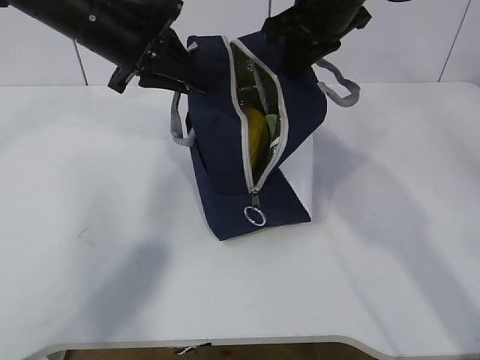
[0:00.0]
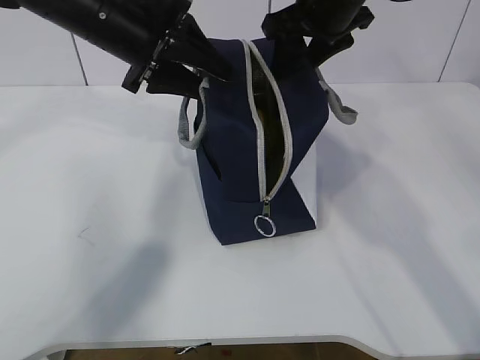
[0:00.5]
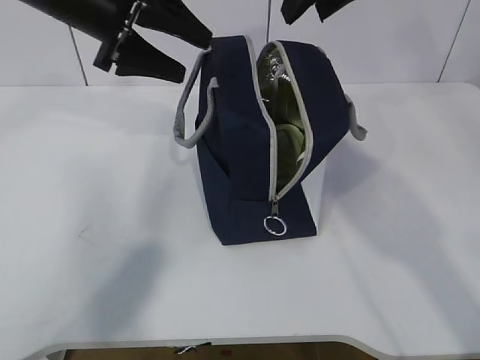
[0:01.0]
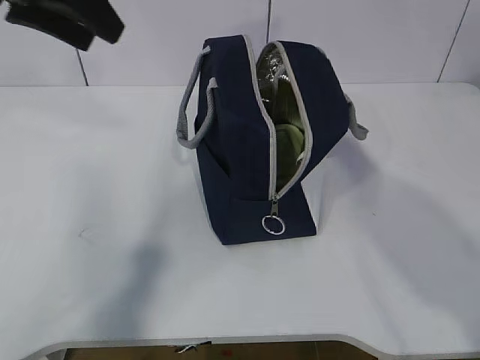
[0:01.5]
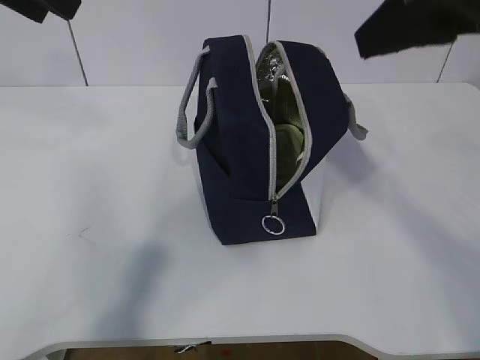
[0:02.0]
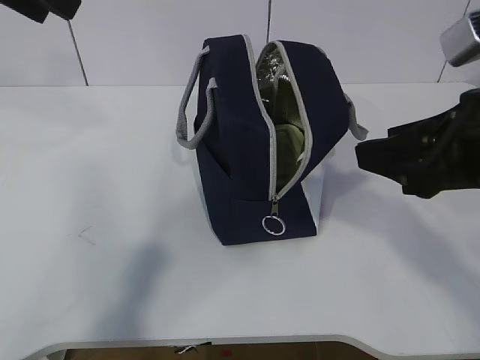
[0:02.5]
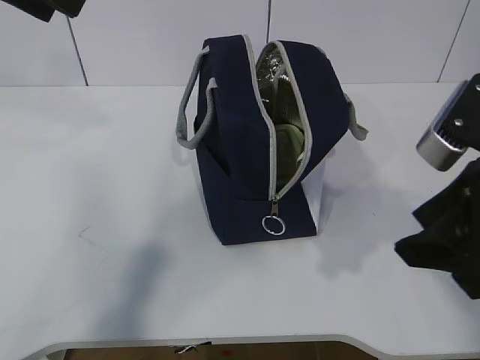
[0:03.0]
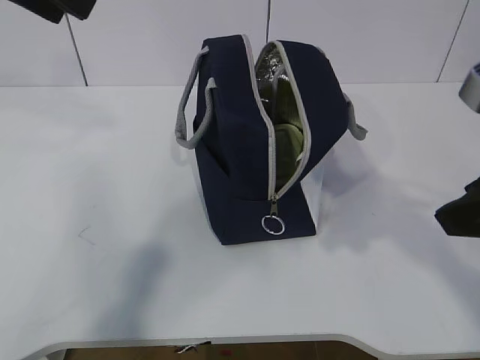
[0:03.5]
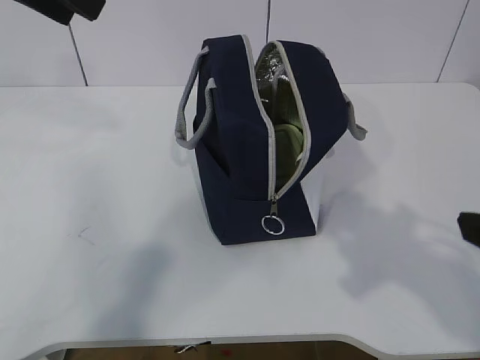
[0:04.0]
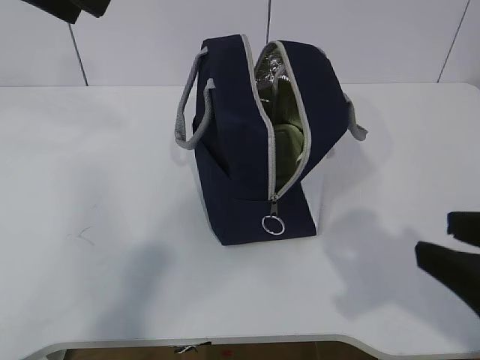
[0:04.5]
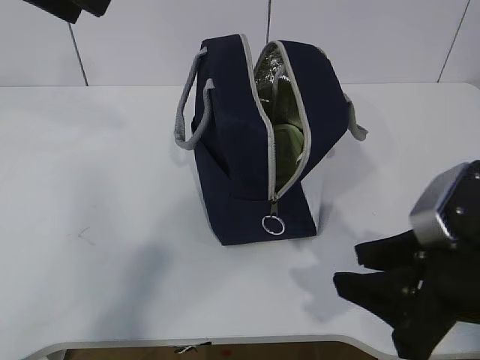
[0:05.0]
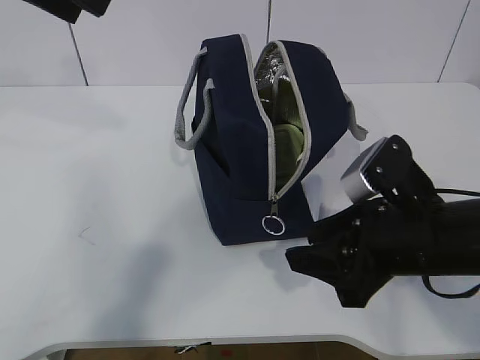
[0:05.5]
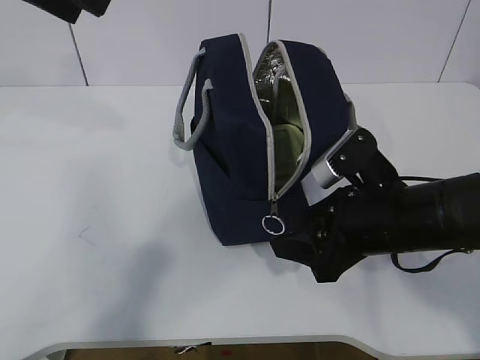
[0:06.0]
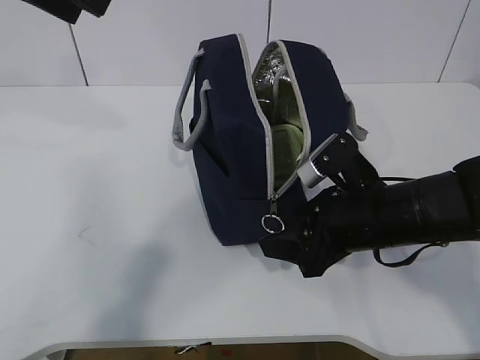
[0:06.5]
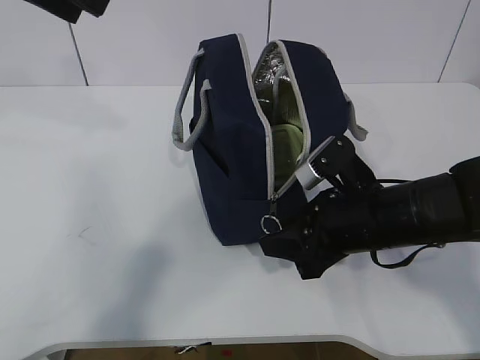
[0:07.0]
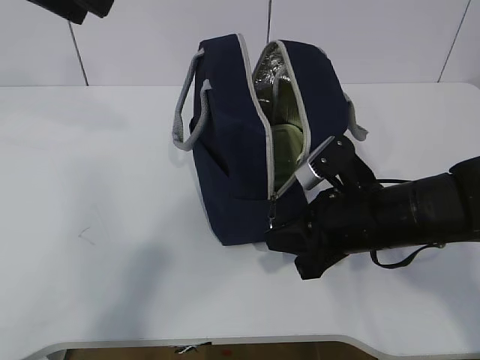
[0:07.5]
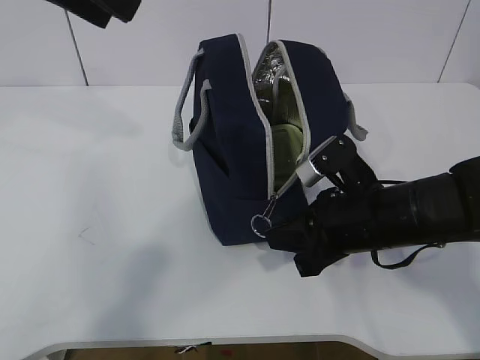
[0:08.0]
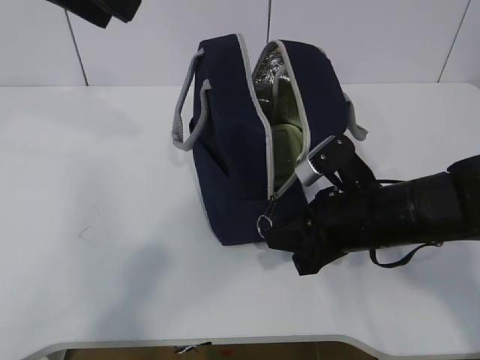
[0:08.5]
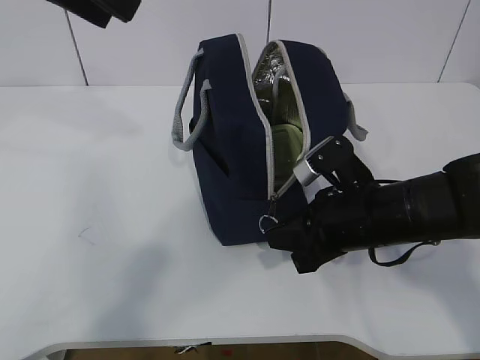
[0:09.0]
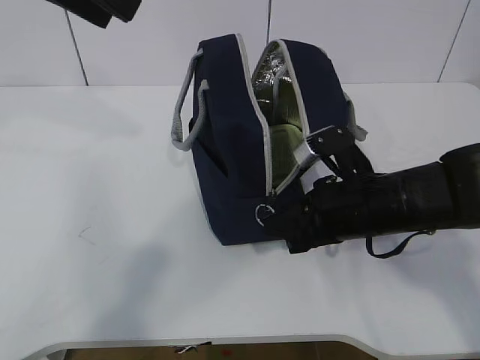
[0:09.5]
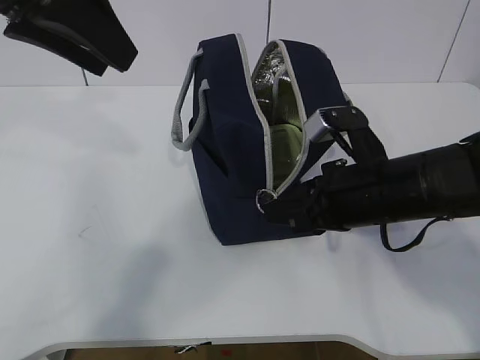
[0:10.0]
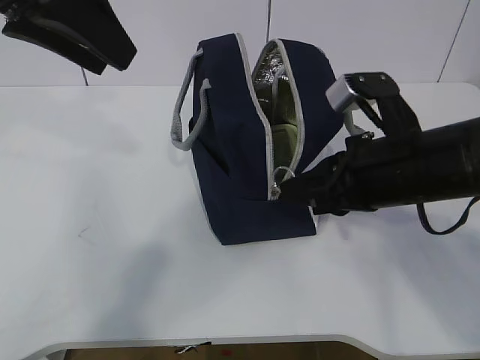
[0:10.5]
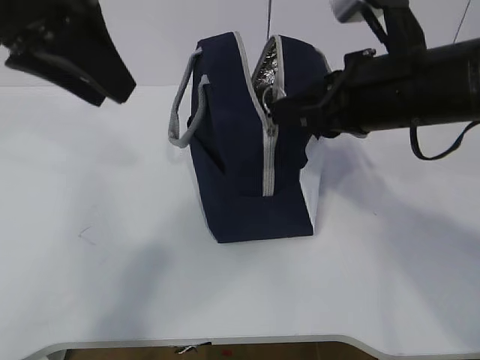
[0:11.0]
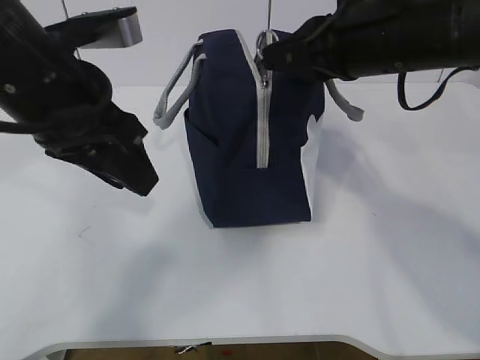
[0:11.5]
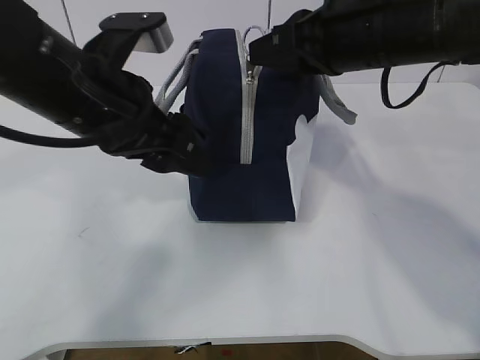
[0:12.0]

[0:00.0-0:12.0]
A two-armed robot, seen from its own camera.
Step, 0:00.0 to 0:04.5: Grab the lunch bag with your left hand.
0:00.0 to 0:02.0: The left gripper shifts some 15 cm upward, backward and to the left, and opens, while the right gripper moves backward, some 20 cm, and opens up.
0:02.0 to 0:04.0: The right gripper goes approximately 15 cm backward, downward and to the right.
0:04.0 to 0:06.0: The right gripper travels forward, downward and to the left by some 20 cm.
0:06.0 to 0:08.0: The right gripper closes up.
0:08.0 to 0:10.0: The grippers stay close to where they were, moving slightly.
0:10.0 to 0:12.0: The right gripper heads upward, covering some 15 cm; the left gripper is displaced downward by some 10 cm, and opens up.

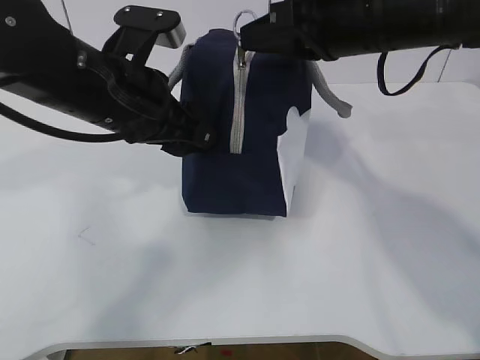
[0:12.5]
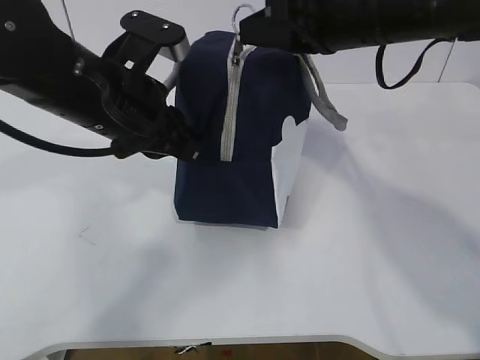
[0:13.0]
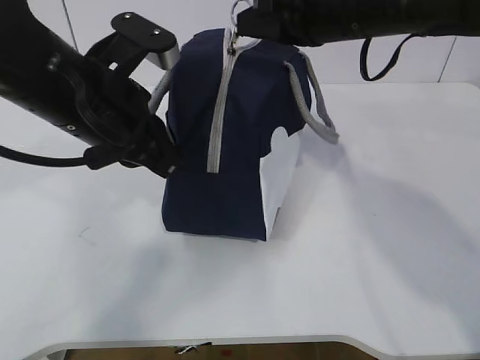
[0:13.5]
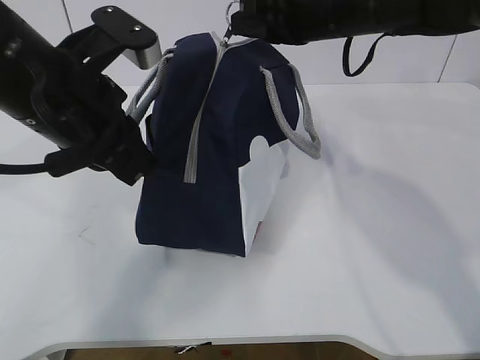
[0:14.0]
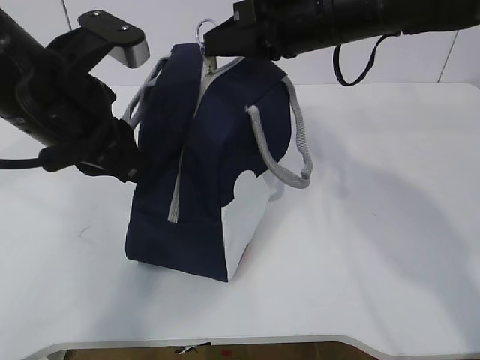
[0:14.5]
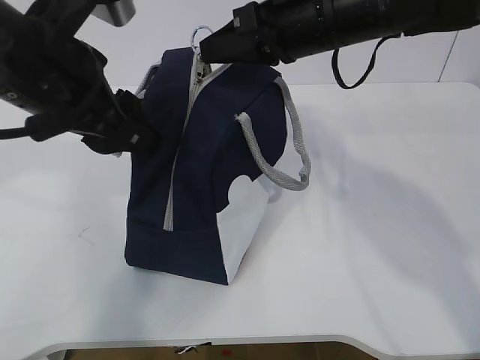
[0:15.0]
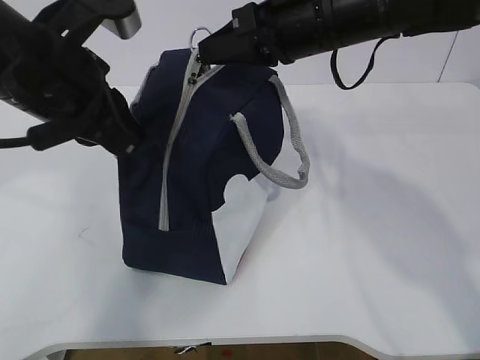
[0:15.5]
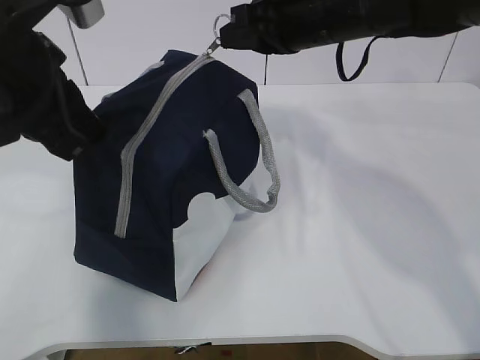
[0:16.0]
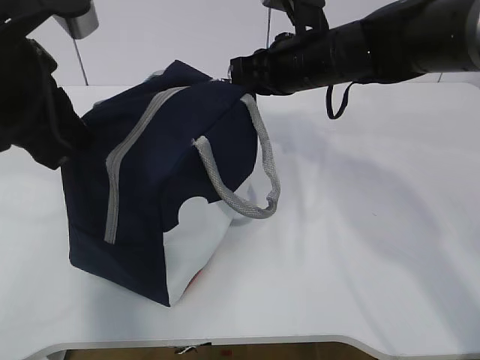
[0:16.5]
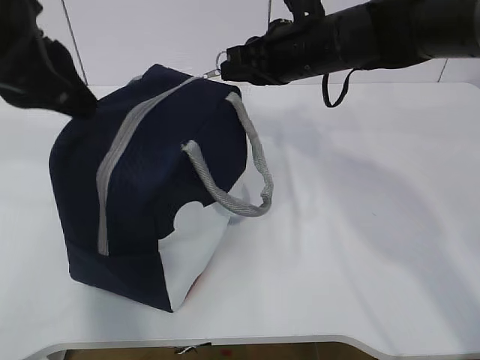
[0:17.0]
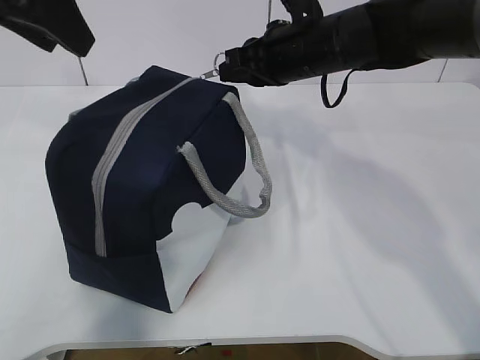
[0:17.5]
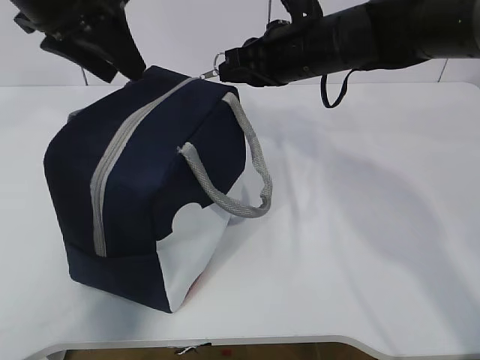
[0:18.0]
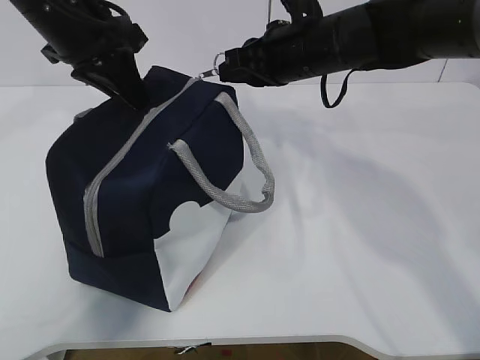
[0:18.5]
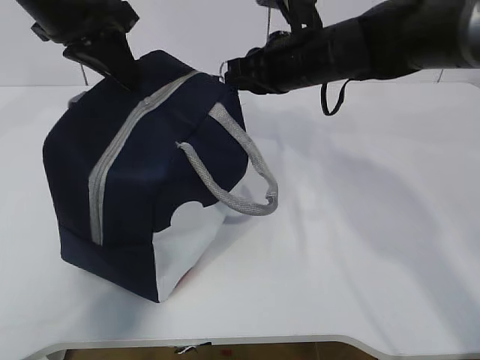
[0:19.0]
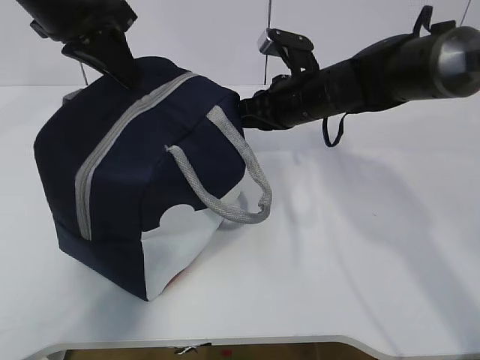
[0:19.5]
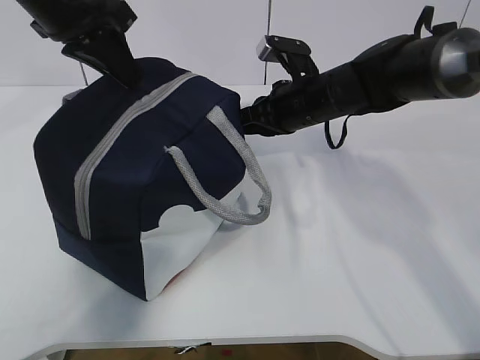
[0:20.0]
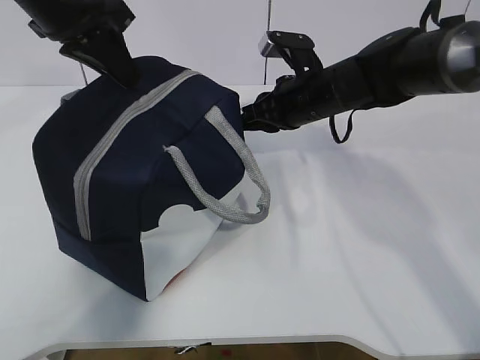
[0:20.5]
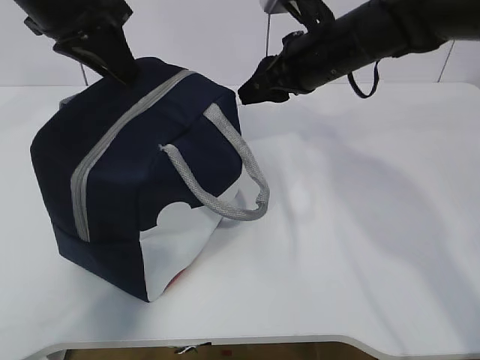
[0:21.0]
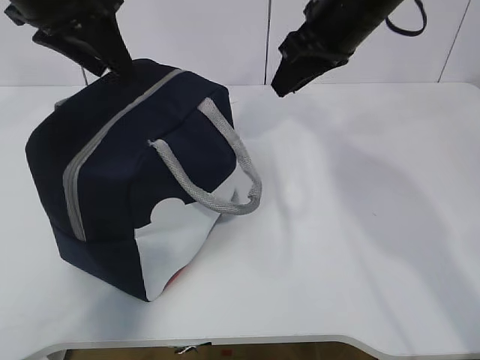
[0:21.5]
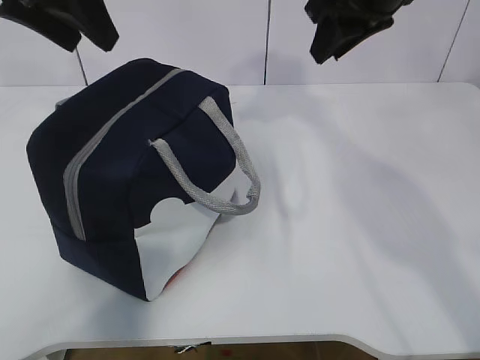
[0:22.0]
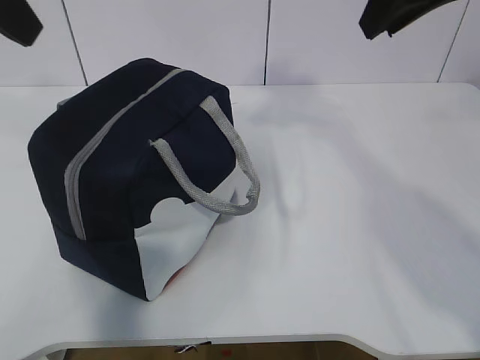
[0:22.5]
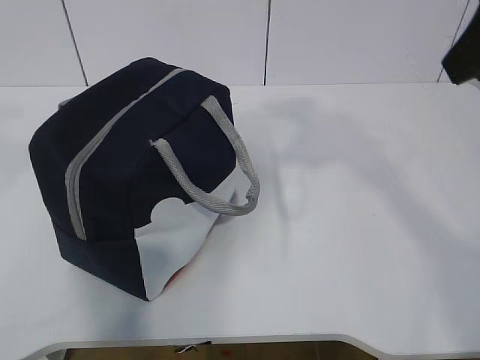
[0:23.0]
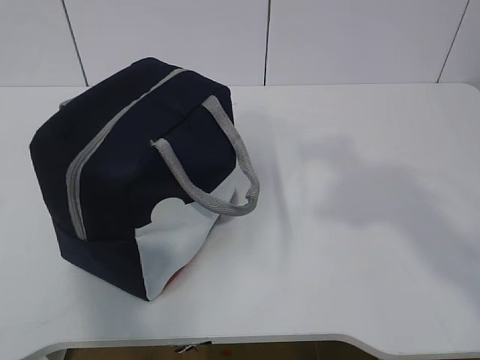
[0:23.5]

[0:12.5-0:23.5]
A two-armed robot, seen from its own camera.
0:12.5 to 0:14.5: The left gripper changes place by some 5 cm, and closes its fingers. Meanwhile the right gripper moves some 5 cm.
0:14.5 to 0:16.0: The left gripper opens, then closes again.
0:16.0 to 0:18.0: The left gripper moves forward, roughly 10 cm, and opens its fingers; the right gripper ends up about 5 cm from where it was.
0:18.0 to 0:20.0: The left gripper closes up. The right gripper travels downward by some 10 cm.
0:20.0 to 0:21.5: The left gripper opens its fingers, while the right gripper heads upward, covering roughly 10 cm, and opens.
0:21.5 to 0:23.5: The grippers both shift backward by roughly 30 cm.

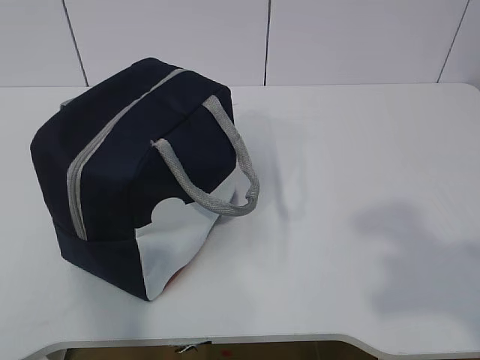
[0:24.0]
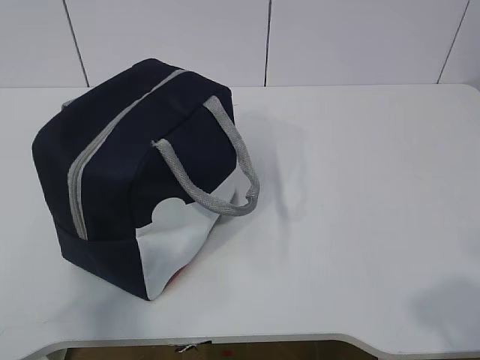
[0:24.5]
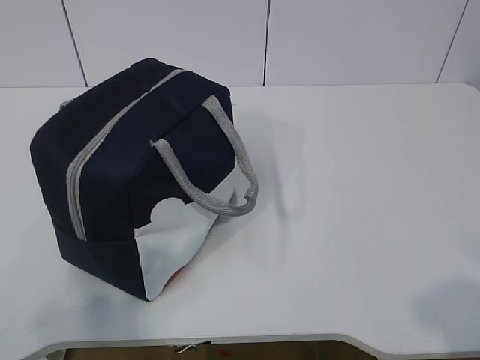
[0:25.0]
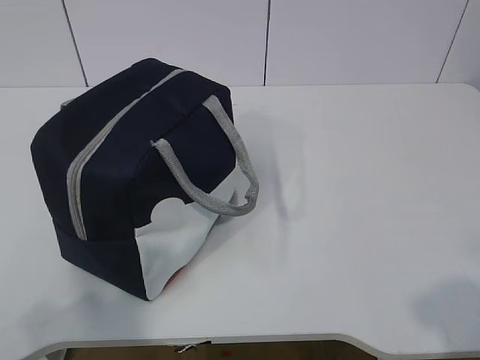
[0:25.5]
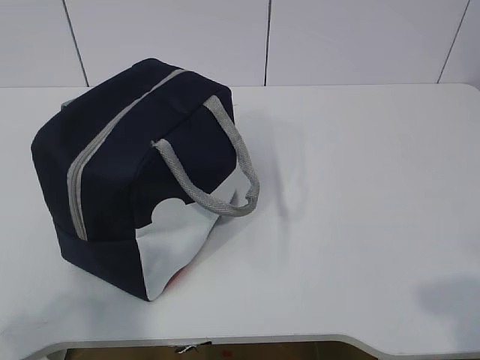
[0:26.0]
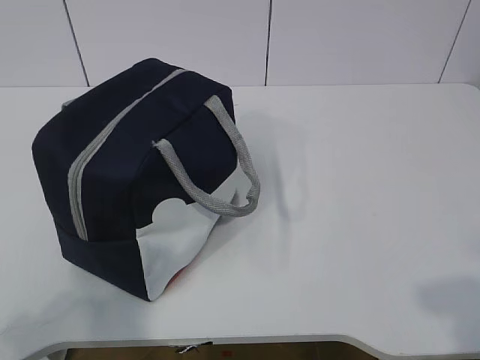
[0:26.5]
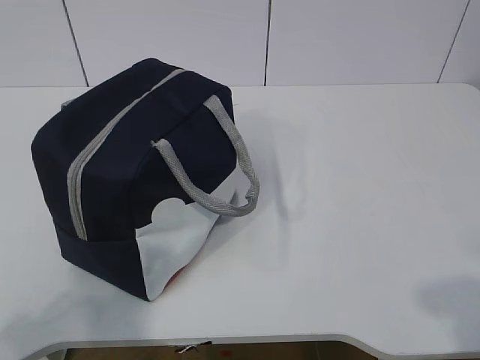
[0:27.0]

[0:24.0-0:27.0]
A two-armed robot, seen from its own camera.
0:24.0 to 0:25.5: The right gripper is displaced downward by roughly 10 cm.
